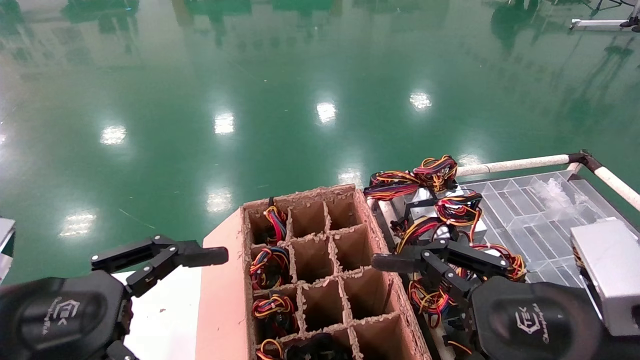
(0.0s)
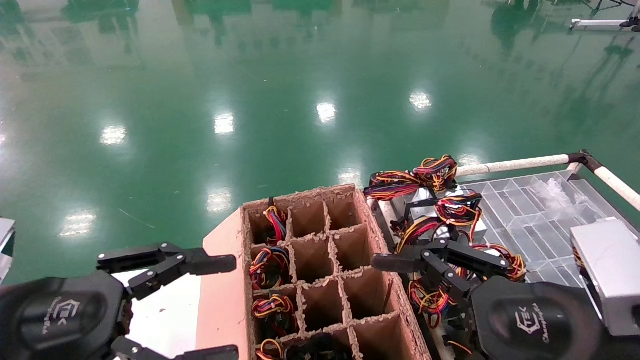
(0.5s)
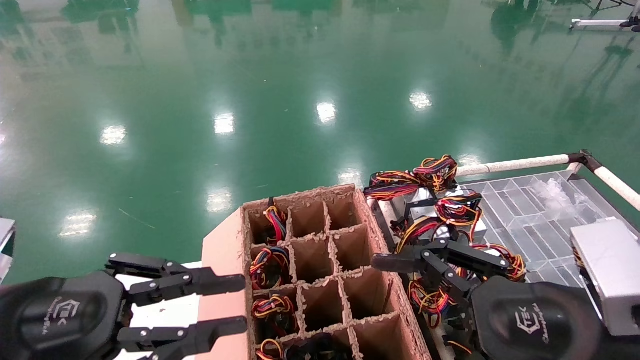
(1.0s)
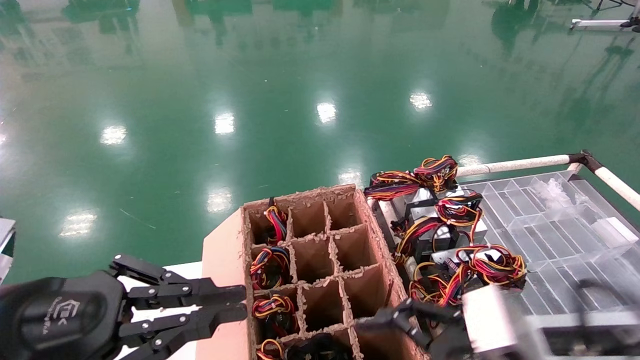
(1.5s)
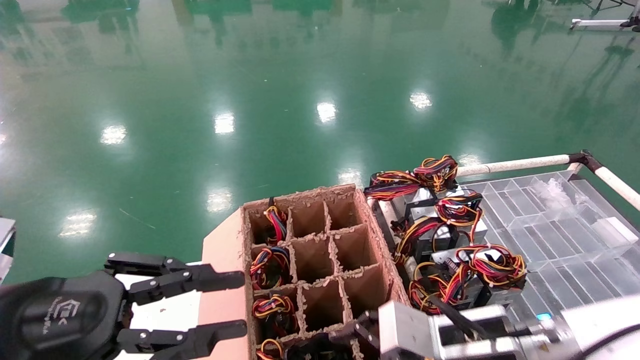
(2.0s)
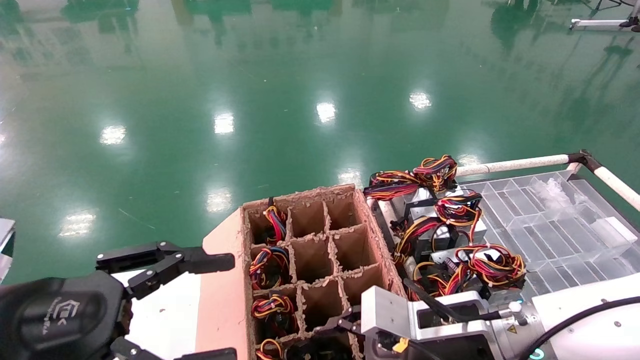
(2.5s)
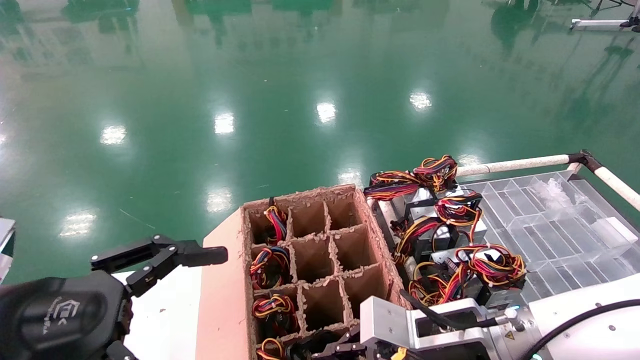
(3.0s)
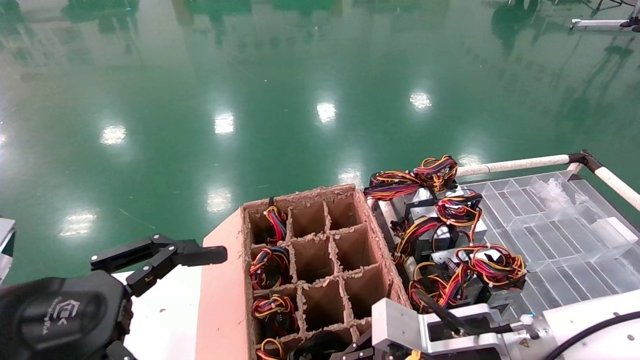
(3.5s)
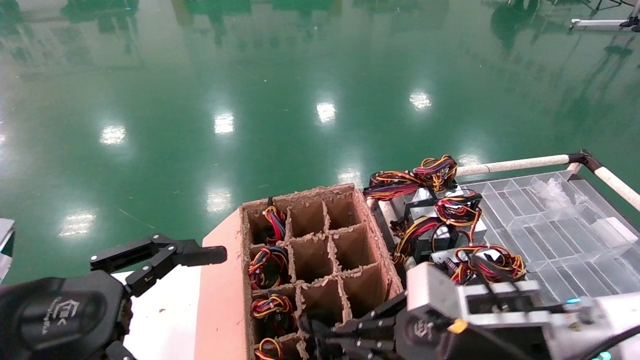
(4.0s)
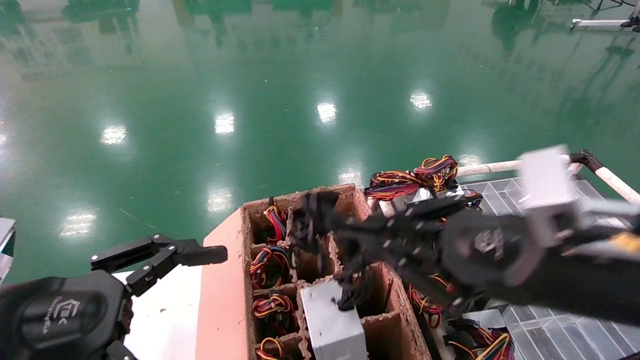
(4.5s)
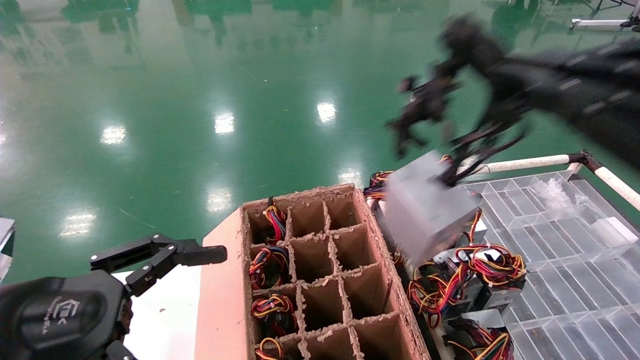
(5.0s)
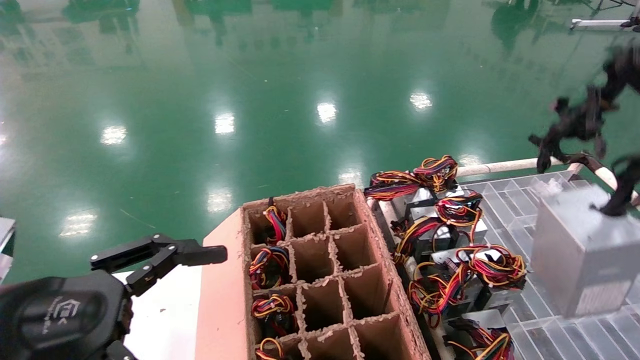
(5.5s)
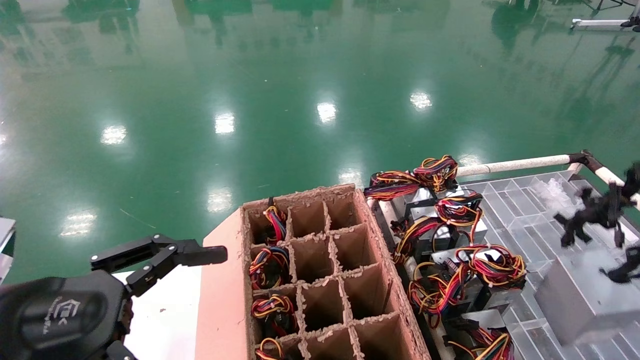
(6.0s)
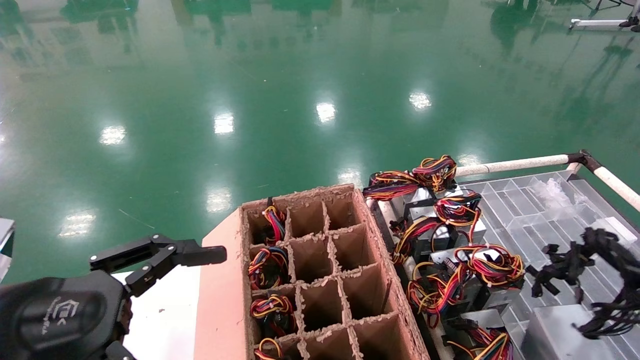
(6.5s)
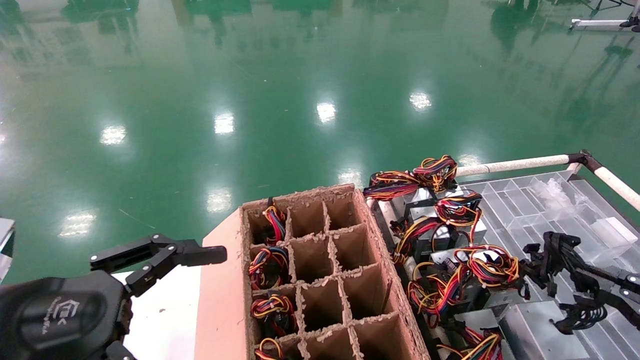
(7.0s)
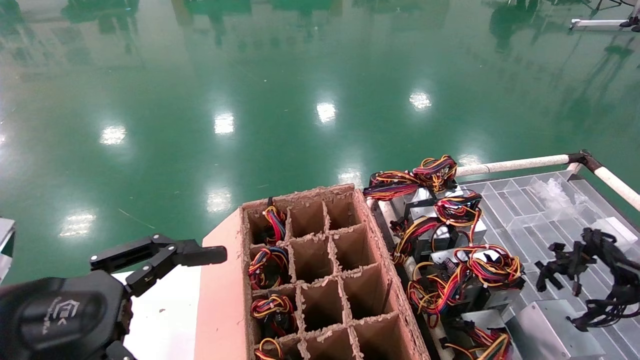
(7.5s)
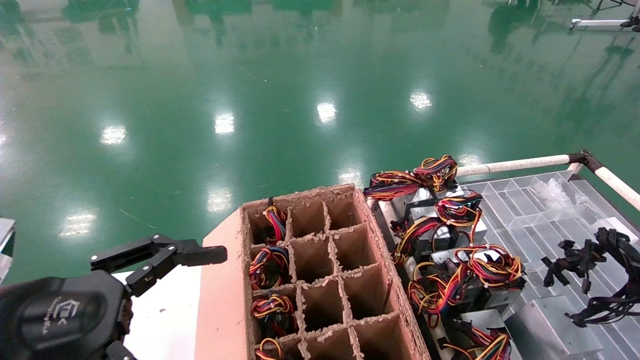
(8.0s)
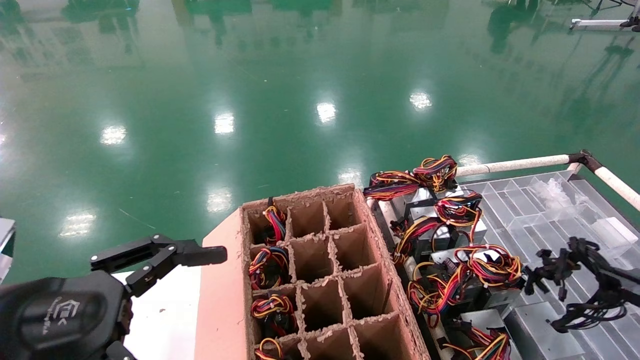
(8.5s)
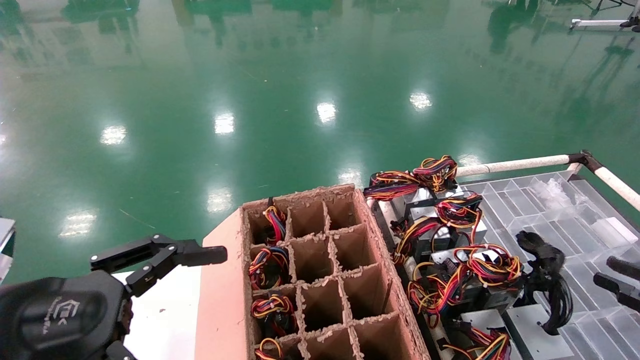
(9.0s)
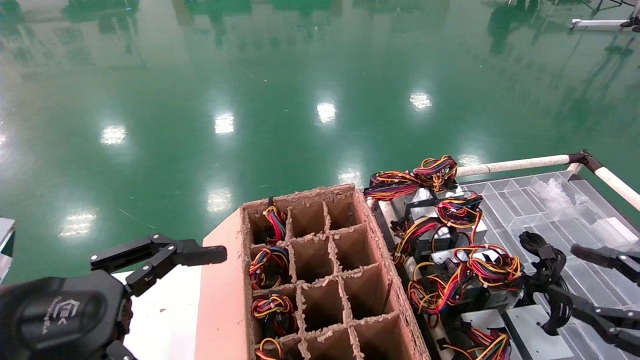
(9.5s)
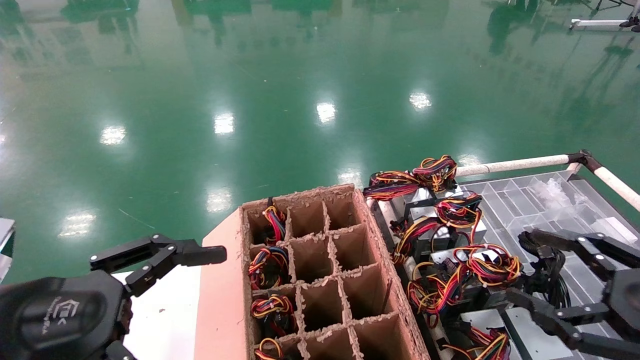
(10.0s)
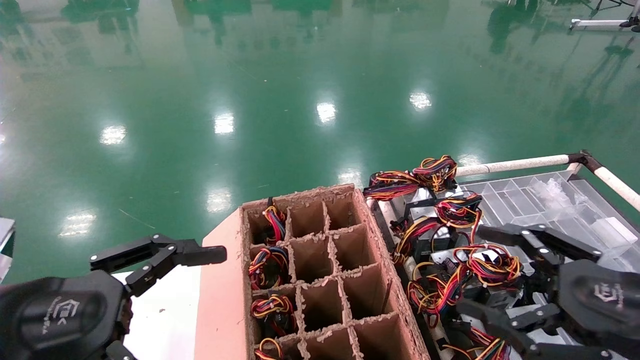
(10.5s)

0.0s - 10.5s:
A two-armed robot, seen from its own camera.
Step, 1.5s - 3.5s: Grab and lift the power supply from the large box.
Step, 4.0s - 9.0s: Place the power supply on the operating table.
0.0s - 2.0s: The left gripper closes its fingers, while the right gripper shifts about 15 cm forward, downward and to the left.
2.0s - 4.0s: The left gripper opens its fingers. Meanwhile the right gripper closes.
4.0s - 6.5s: The right gripper goes roughly 30 cm to the right and backward.
6.5s - 8.5s: The right gripper moves roughly 5 cm.
8.5s - 10.5s: The right gripper heads to the left, covering approximately 15 cm, and opens its fingers.

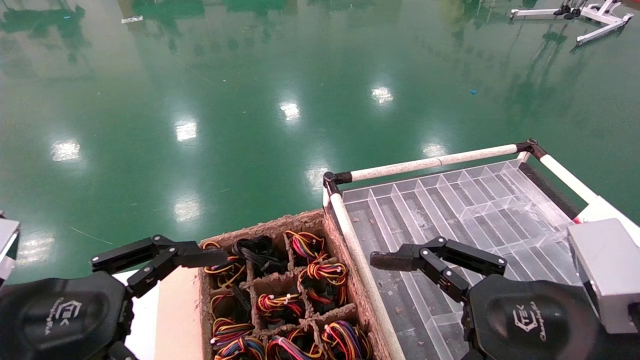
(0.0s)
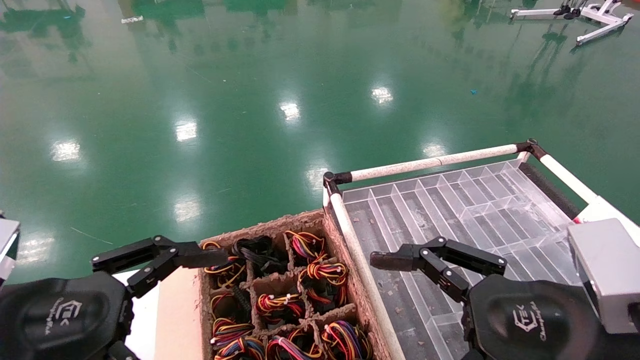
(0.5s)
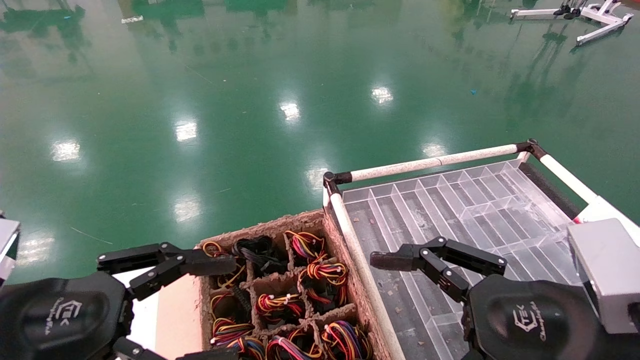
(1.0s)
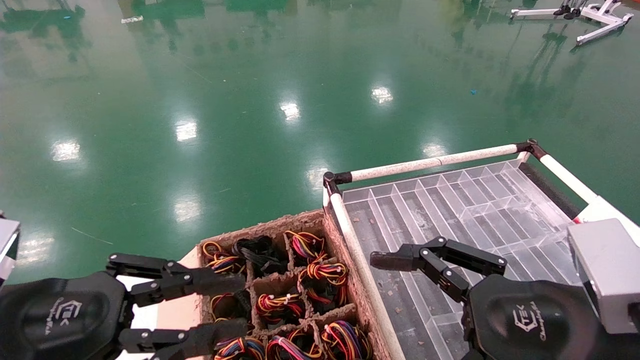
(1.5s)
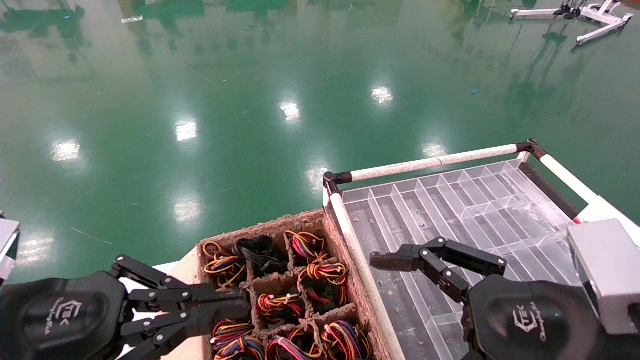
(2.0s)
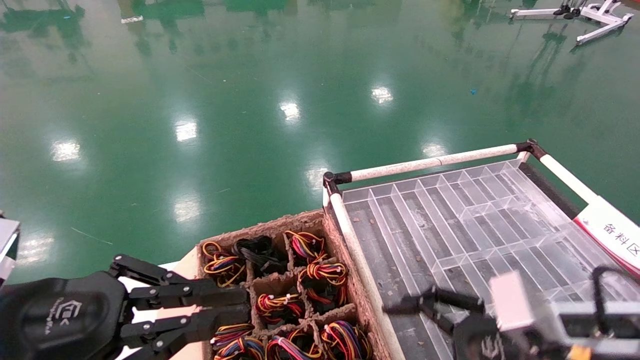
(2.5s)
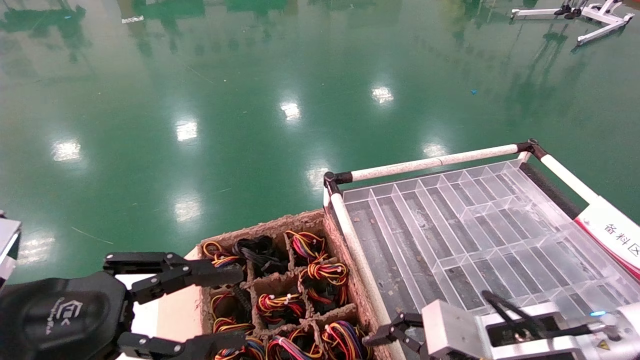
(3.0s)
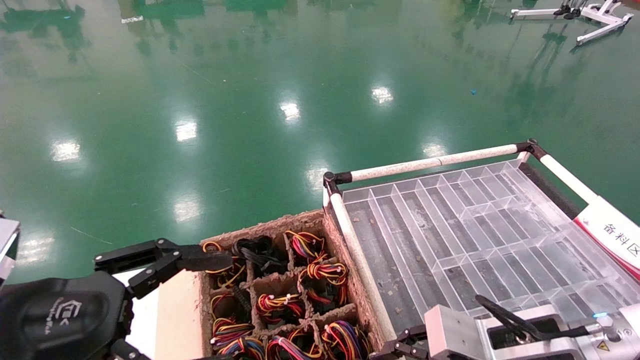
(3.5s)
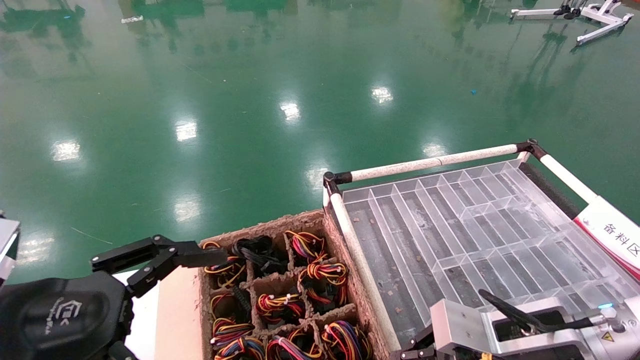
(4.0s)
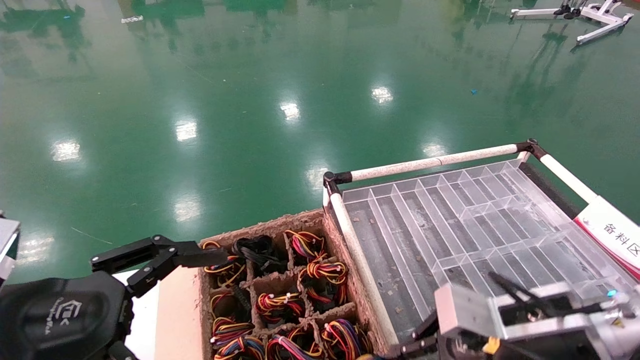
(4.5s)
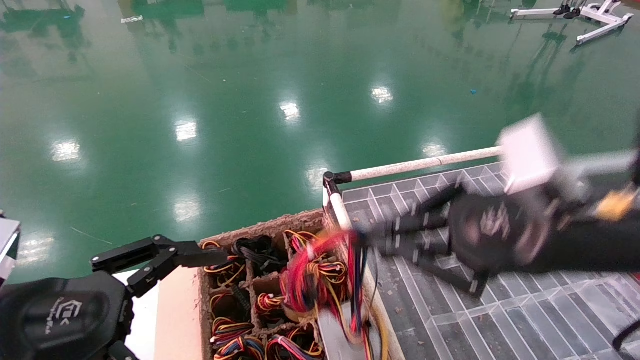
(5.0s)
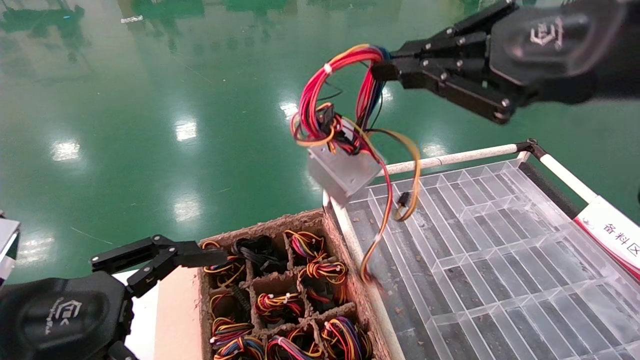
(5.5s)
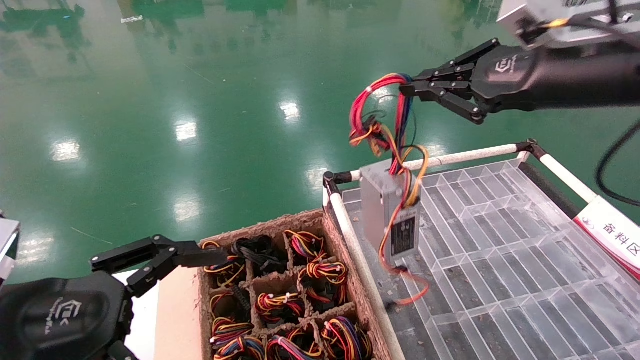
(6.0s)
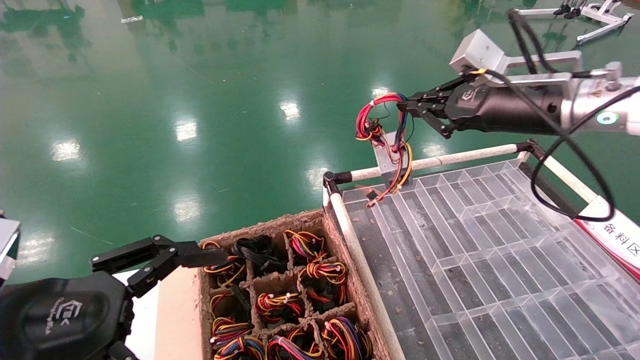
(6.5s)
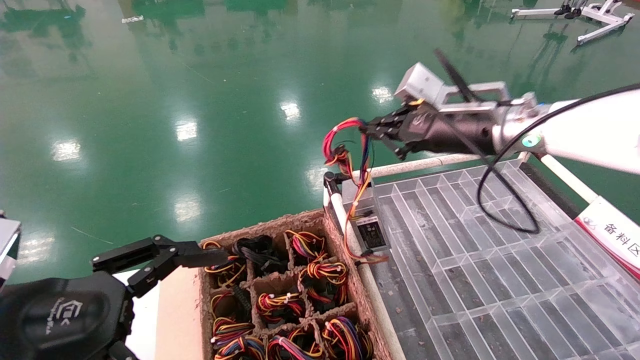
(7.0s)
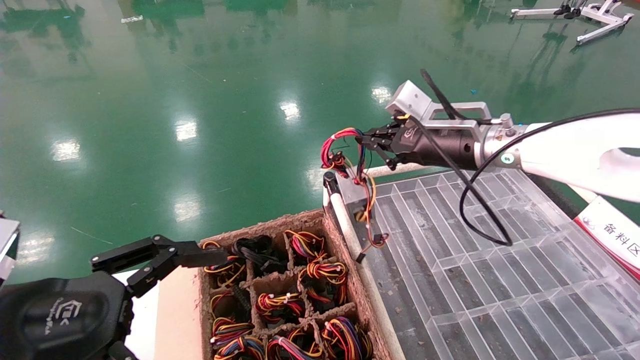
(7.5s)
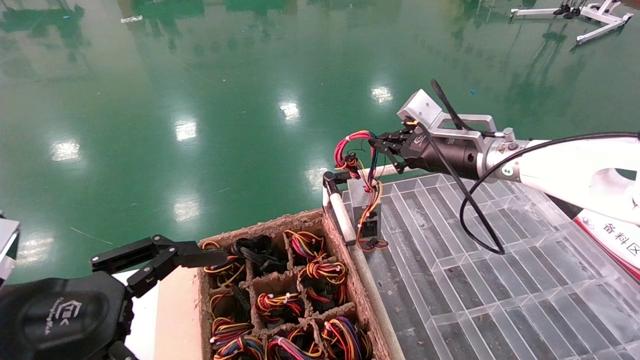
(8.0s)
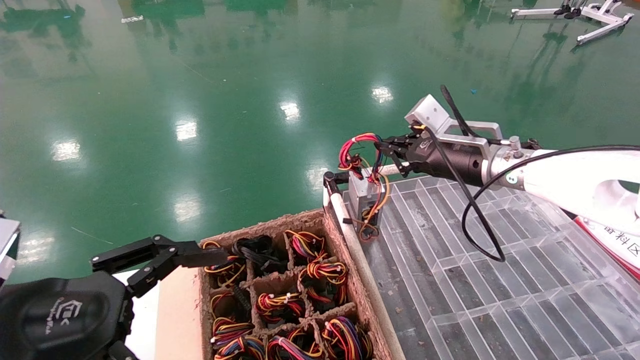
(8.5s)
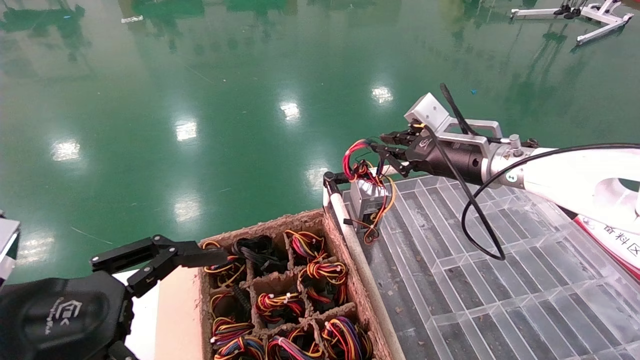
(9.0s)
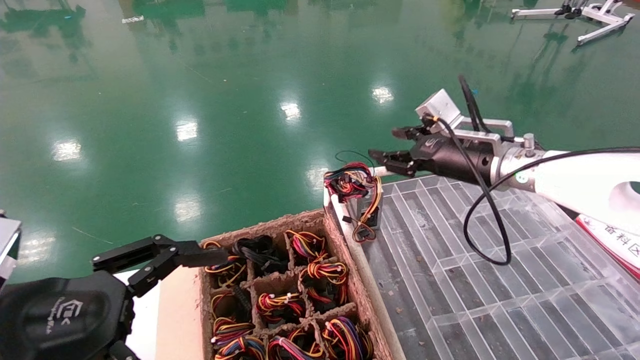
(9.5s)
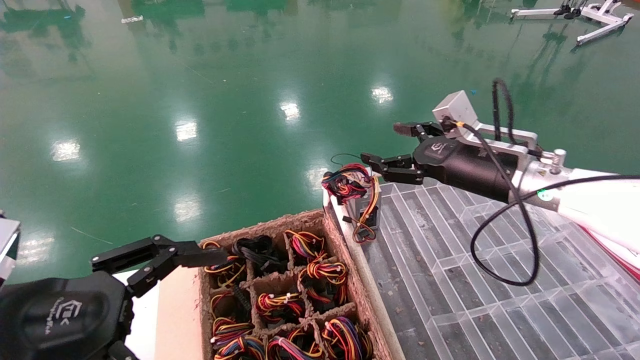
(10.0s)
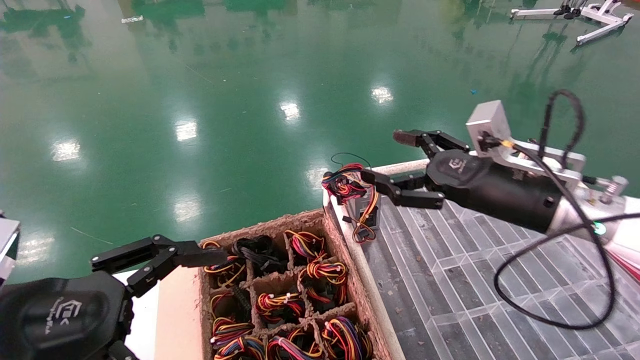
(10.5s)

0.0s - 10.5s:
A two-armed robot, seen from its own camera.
Step, 1.0s - 4.5s: Grab and lift the power supply from the large box.
Step, 5.0s - 9.0s: Place the power supply on the operating table.
0.0s - 2.0s: The left gripper closes its fingers.
2.0s - 4.0s: The right gripper moves forward and downward, about 10 cm, and closes up. The left gripper opens.
4.0s - 6.5s: The right gripper heads upward and forward, covering about 25 cm.
6.5s - 8.5s: The right gripper heads downward and forward, covering approximately 10 cm.
8.5s - 10.5s: The right gripper shifts approximately 10 cm backward, and opens up.
